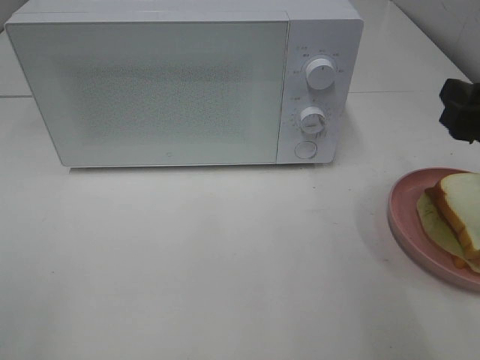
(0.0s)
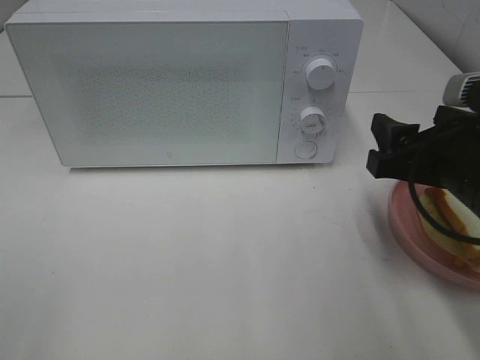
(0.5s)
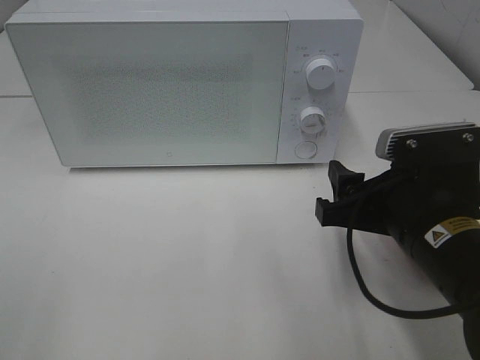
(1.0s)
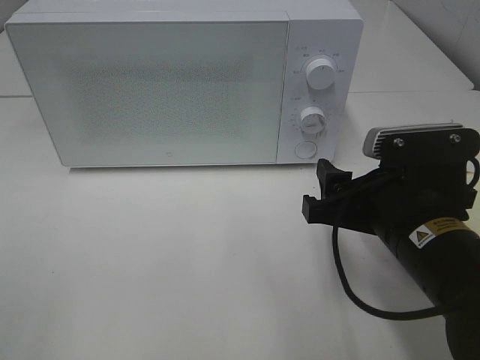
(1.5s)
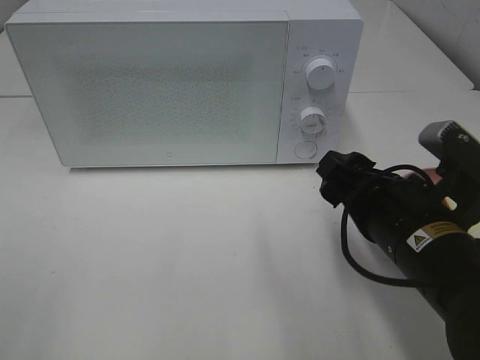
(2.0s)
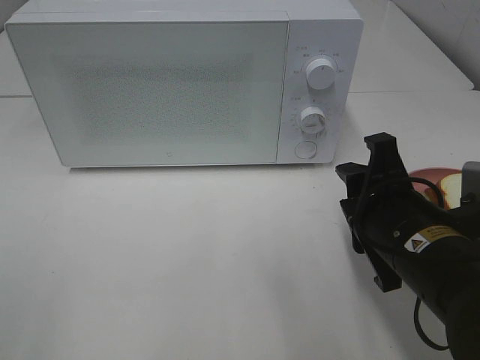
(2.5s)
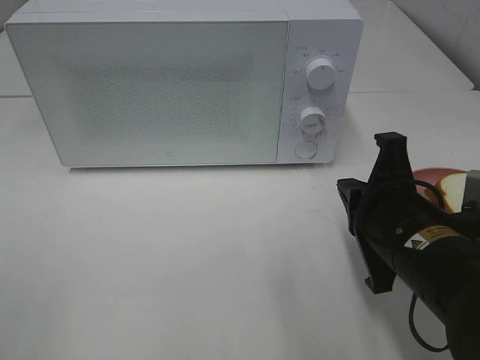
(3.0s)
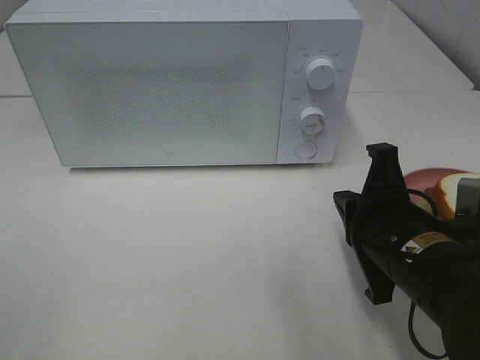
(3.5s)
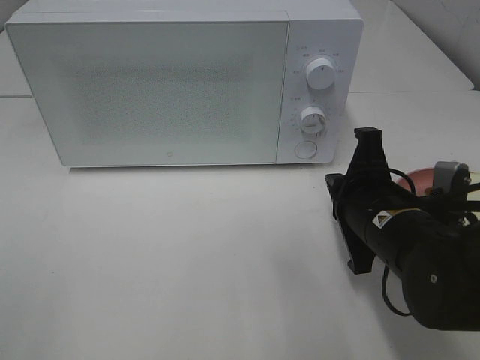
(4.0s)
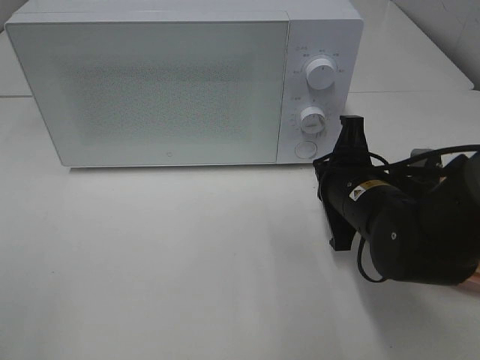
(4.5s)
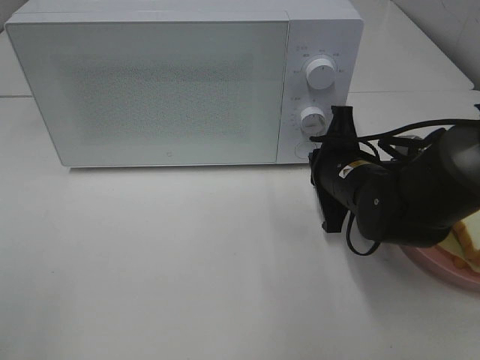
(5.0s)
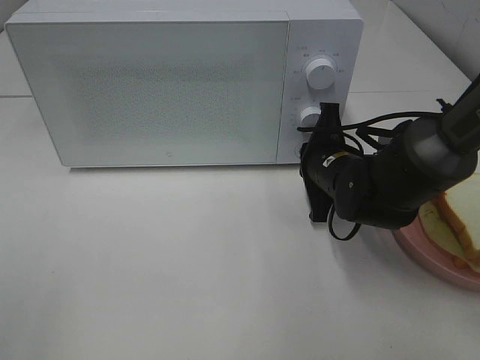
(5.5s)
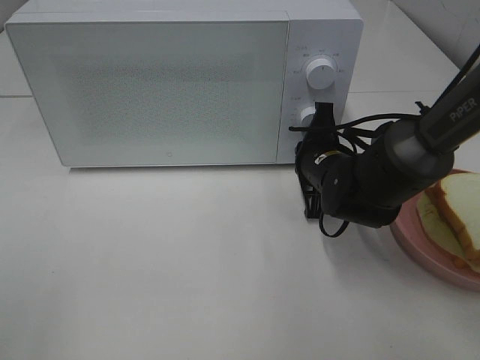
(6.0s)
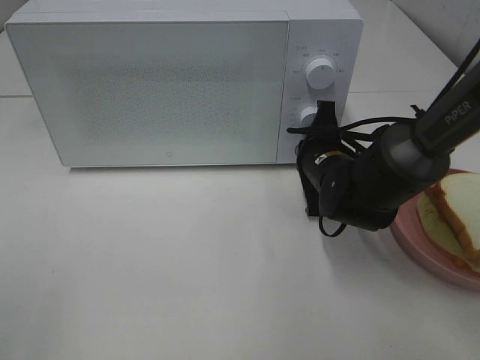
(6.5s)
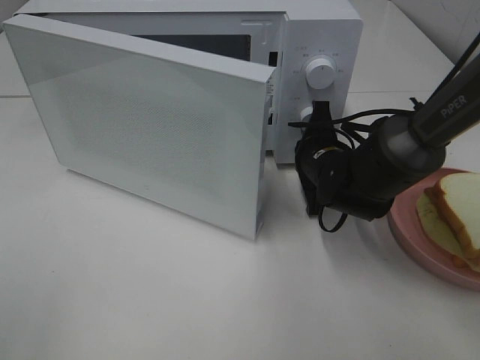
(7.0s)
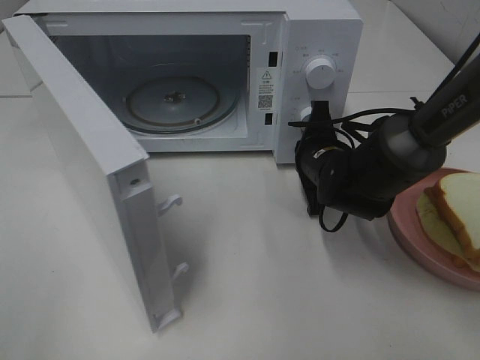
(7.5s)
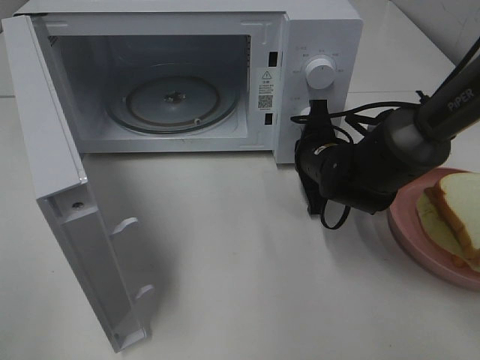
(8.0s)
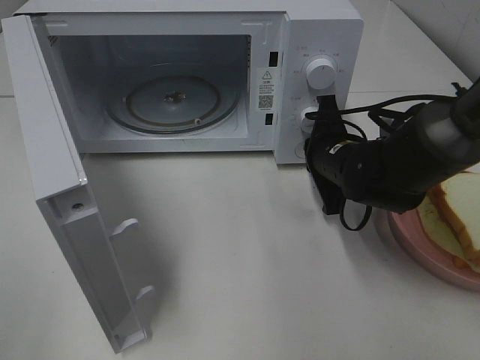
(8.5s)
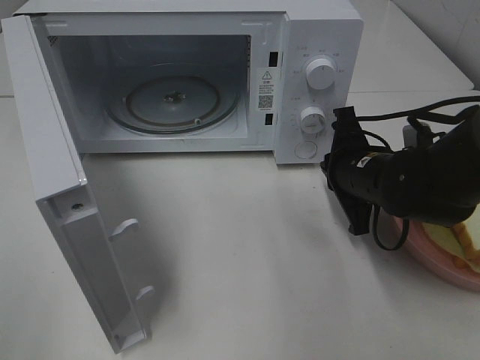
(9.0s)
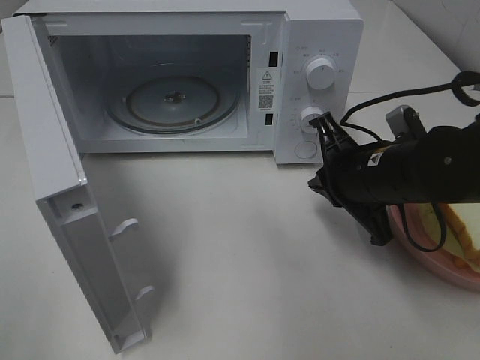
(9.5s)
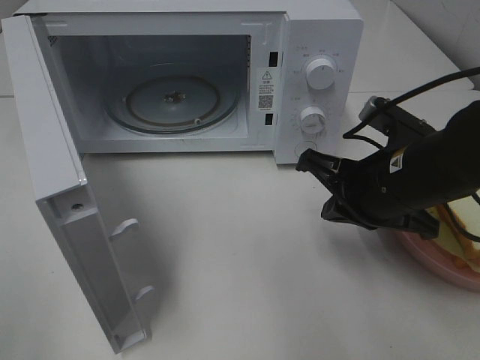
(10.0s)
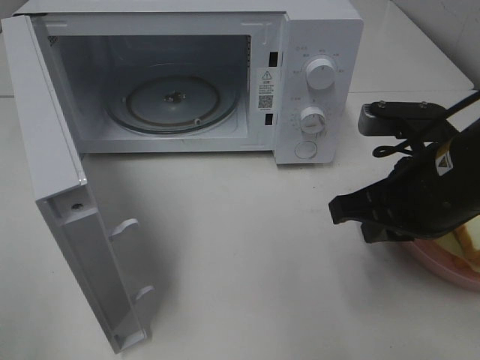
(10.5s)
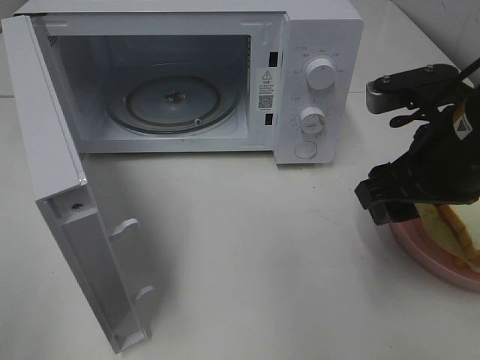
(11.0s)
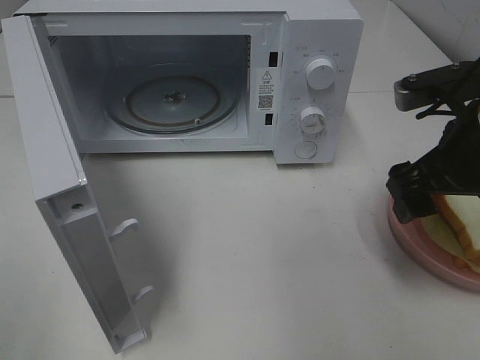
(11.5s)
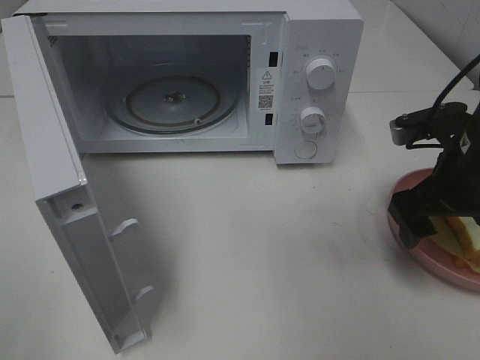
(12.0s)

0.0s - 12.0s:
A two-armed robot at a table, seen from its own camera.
Task of the whole recording: Heat Sandwich.
Step, 0.0s - 9.0s: Right hand: press the switch.
0.0s - 2.0s: The right gripper goes some 15 cm to the left and downward.
2.0s - 4.0s: The right gripper ends up roughly 5 cm from where it was, and closes.
4.0s - 6.0s: The right gripper travels forward by roughly 10 cm.
8.0s - 10.0s: The right gripper is displaced backward and upward by approximately 15 cm.
10.0s - 12.0s: The right gripper shifts roughly 10 cm to the right, and opens.

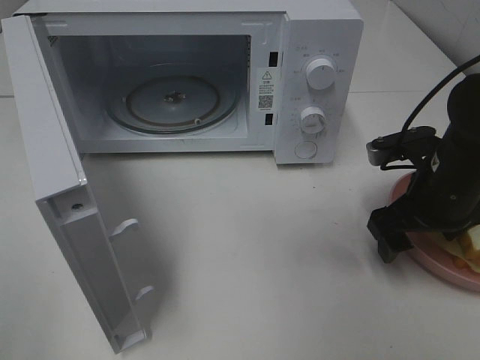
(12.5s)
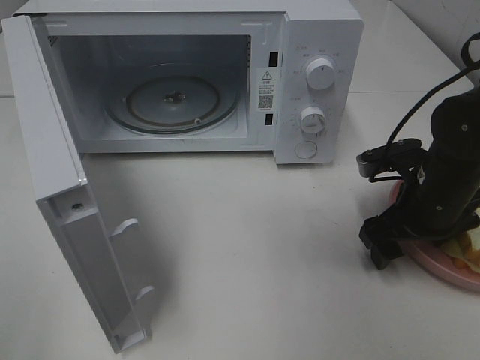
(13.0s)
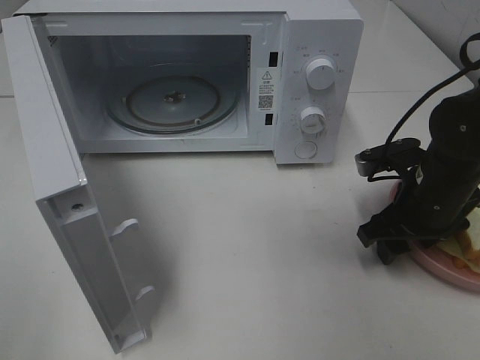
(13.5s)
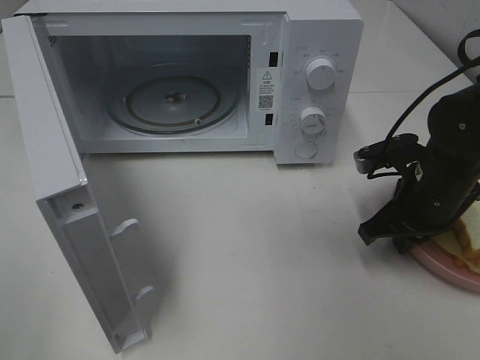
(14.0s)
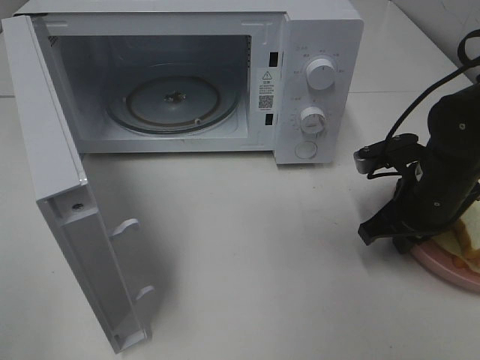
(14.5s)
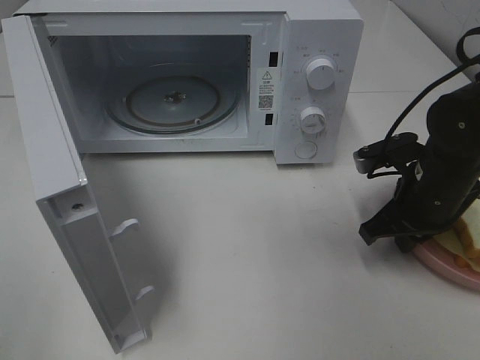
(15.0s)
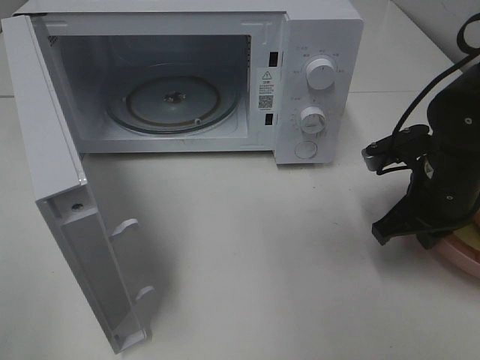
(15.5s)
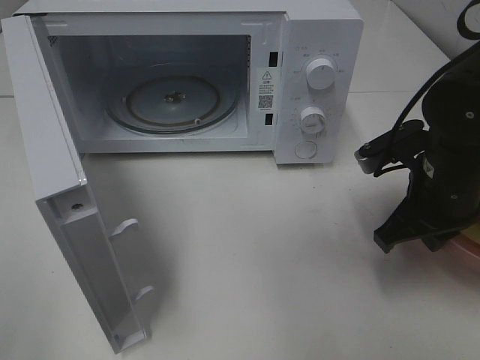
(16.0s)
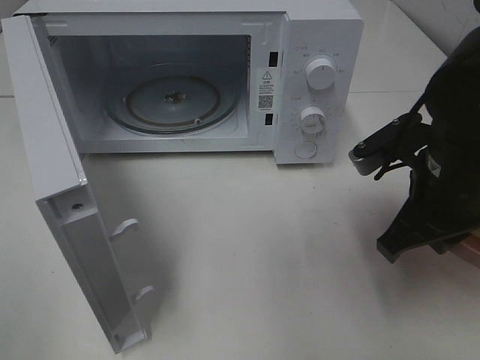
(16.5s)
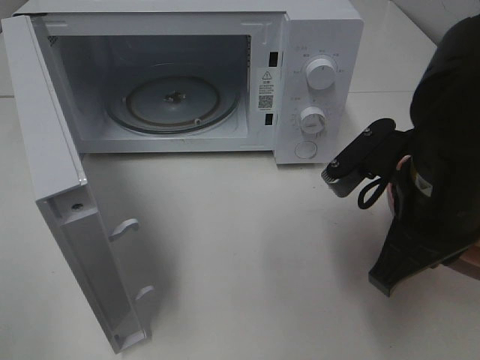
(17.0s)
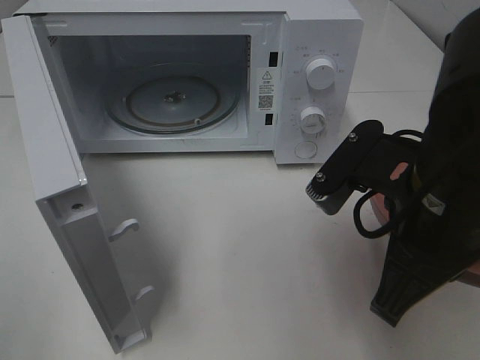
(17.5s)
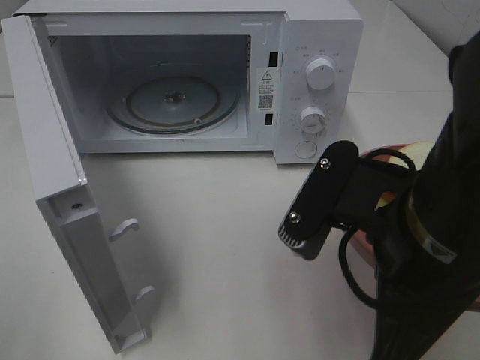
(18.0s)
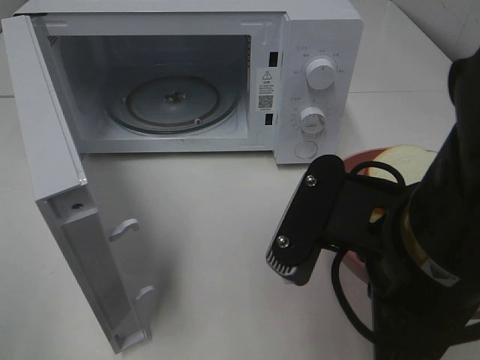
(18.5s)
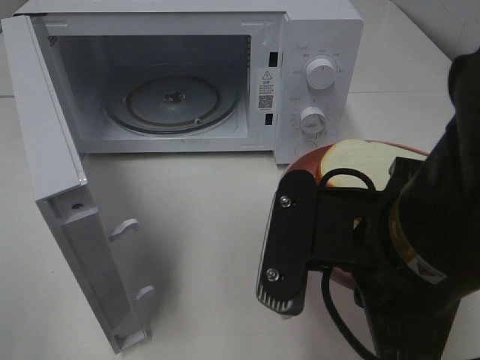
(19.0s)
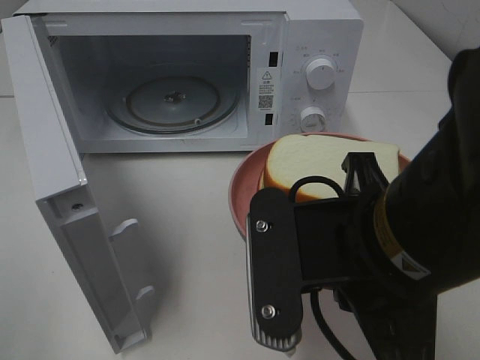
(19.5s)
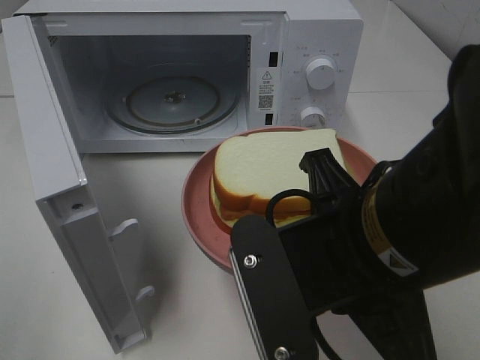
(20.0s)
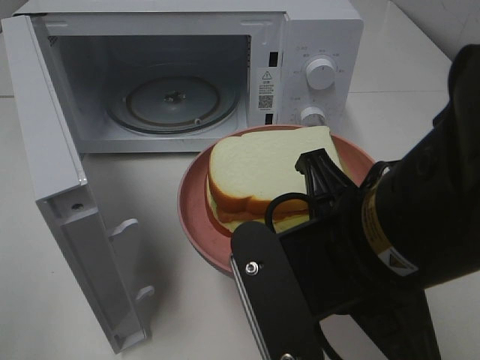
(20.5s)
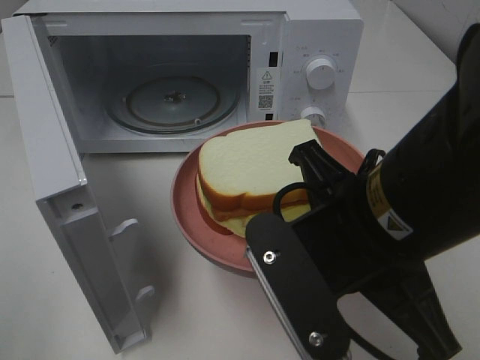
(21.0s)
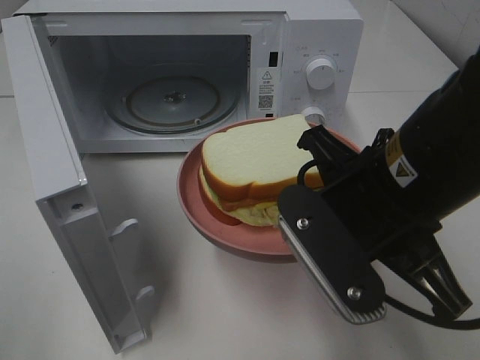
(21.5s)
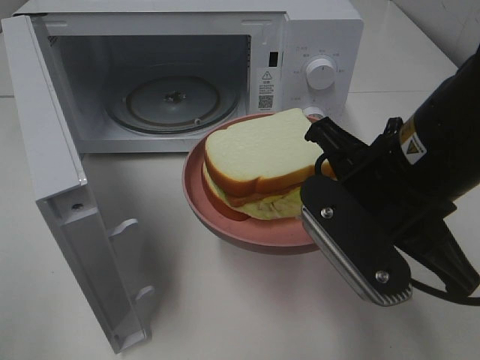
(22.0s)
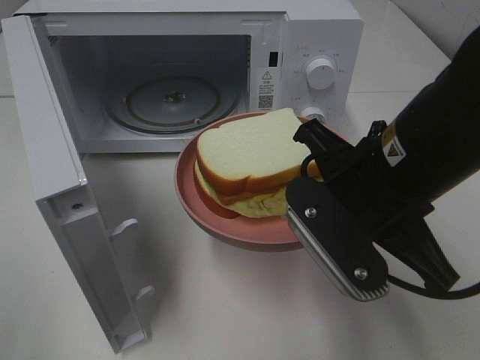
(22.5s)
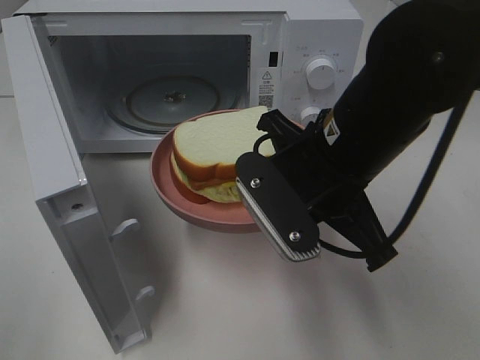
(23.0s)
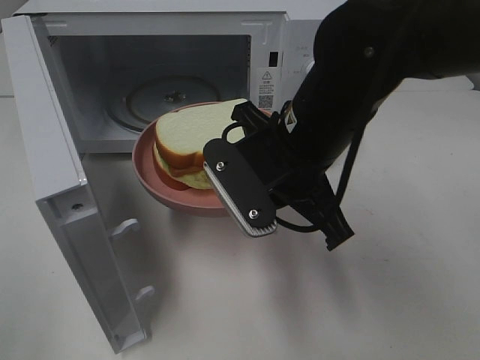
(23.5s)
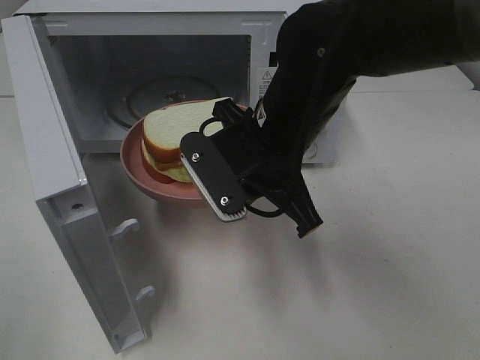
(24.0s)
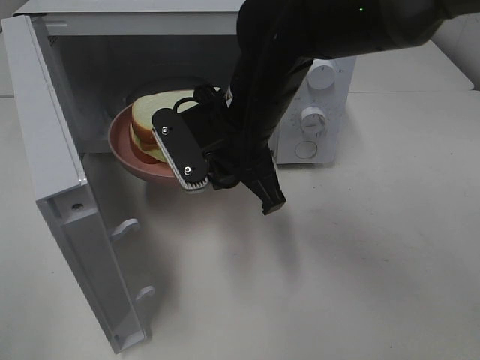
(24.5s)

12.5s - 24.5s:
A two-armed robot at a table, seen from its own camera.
Task of the whole recording: Heat Sandwich.
Step, 12.5s - 15.0s: Right hand: grab the plate with the sandwich.
12.5s - 14.5s: The right gripper closes up.
14.5s - 16.5s: The right gripper shifts some 10 cm upward and backward.
16.5s - 18.5s: The right gripper travels backward and to the left by about 15 cm.
20.5s - 22.5s: The right gripper moves forward, some 5 cm.
22.5s - 24.5s: The right gripper is displaced forward and to the left by roughly 15 cm.

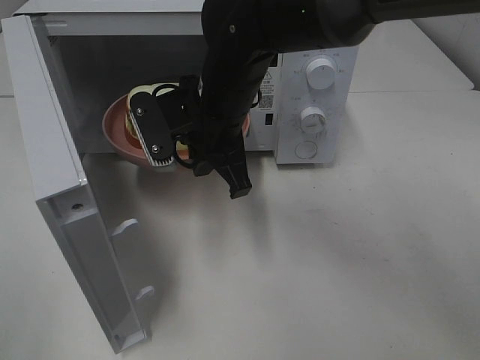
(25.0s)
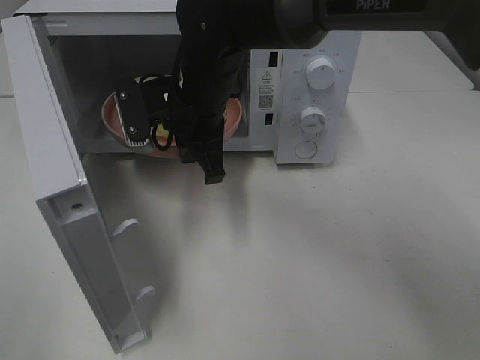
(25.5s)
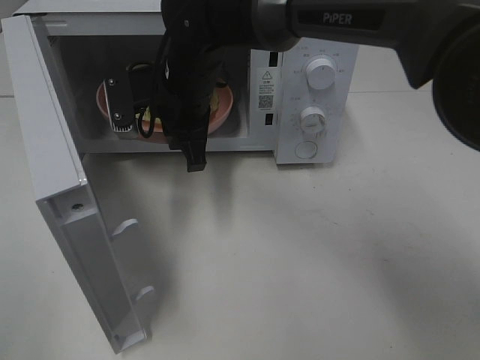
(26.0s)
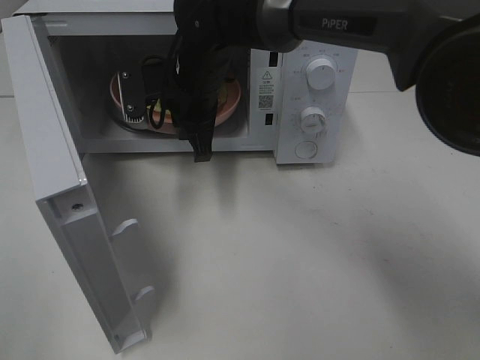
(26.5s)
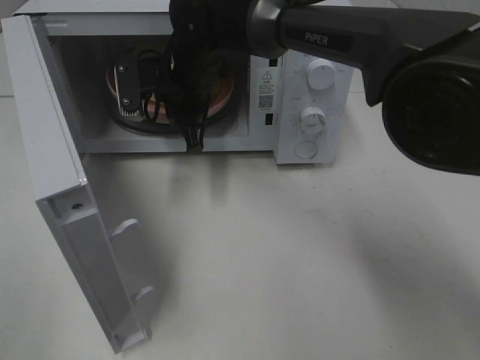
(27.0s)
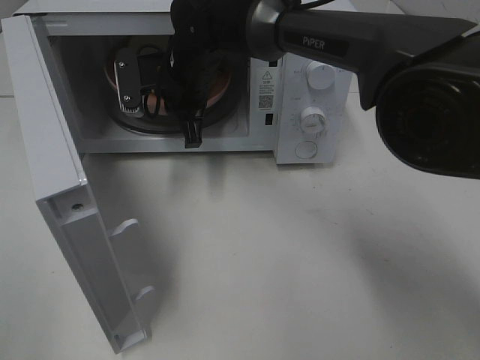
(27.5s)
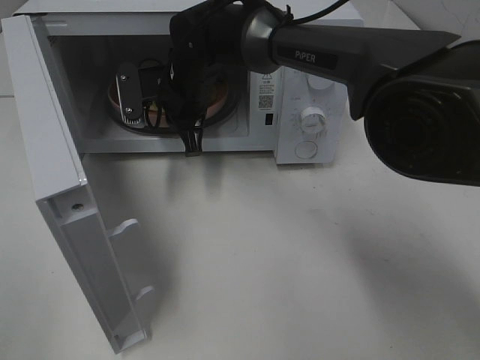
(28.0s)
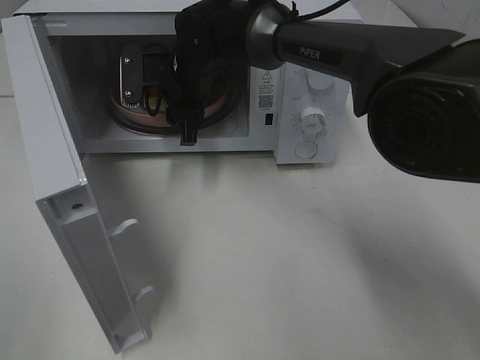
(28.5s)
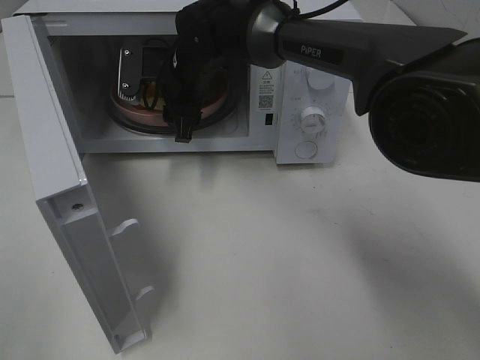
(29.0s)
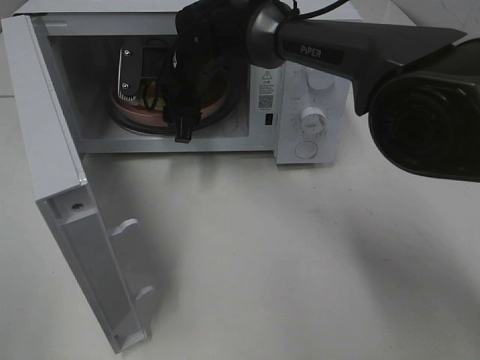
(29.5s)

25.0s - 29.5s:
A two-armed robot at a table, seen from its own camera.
Task of the whole recording: Heat Sandwich.
25.0s - 27.0s: The right gripper shifts approximately 10 cm forward.
27.0s - 29.5s: The right gripper opens.
